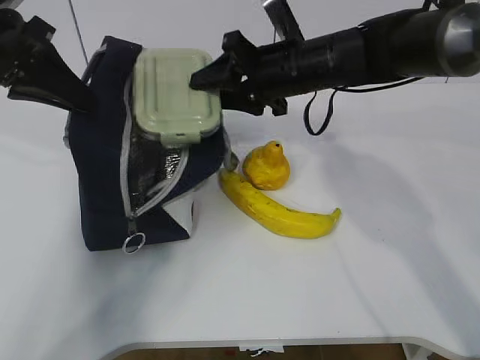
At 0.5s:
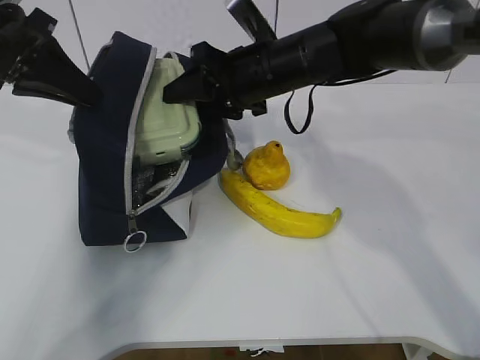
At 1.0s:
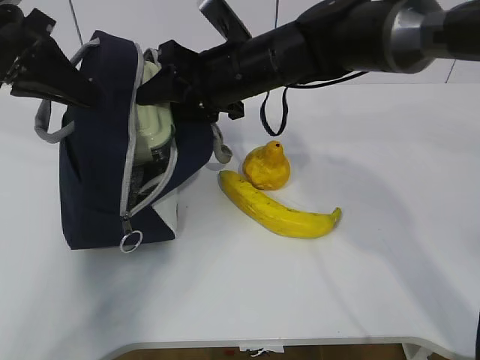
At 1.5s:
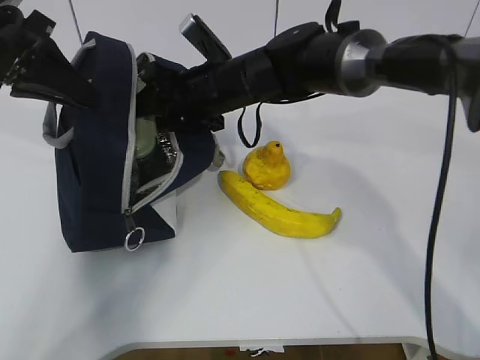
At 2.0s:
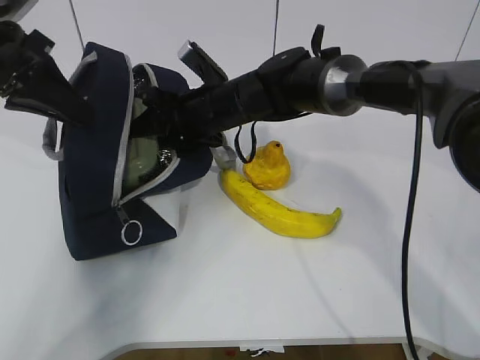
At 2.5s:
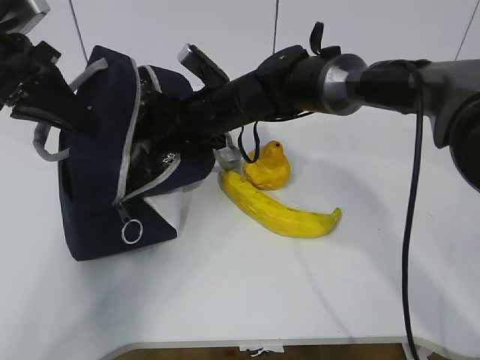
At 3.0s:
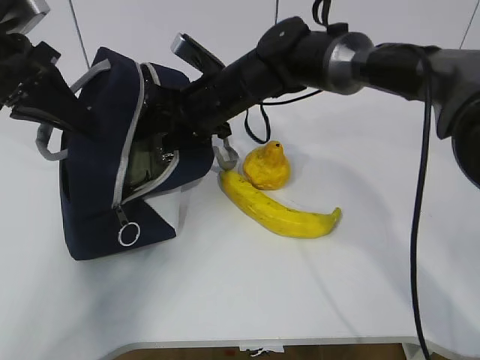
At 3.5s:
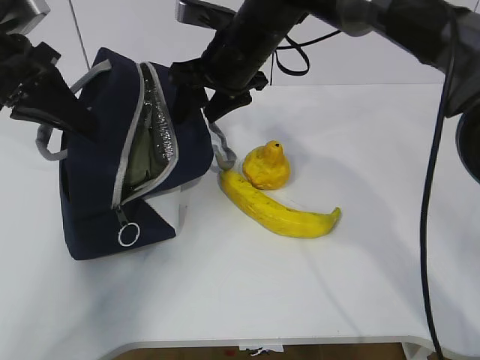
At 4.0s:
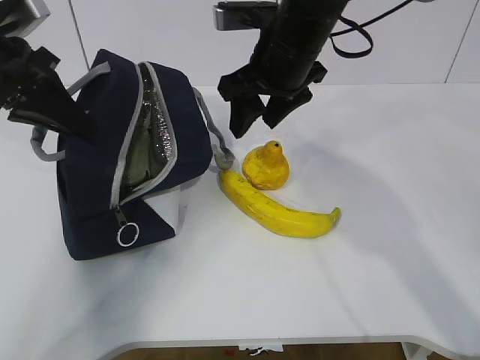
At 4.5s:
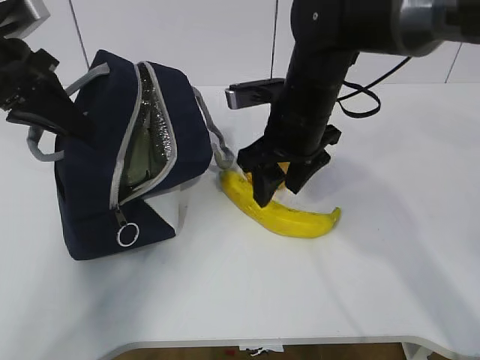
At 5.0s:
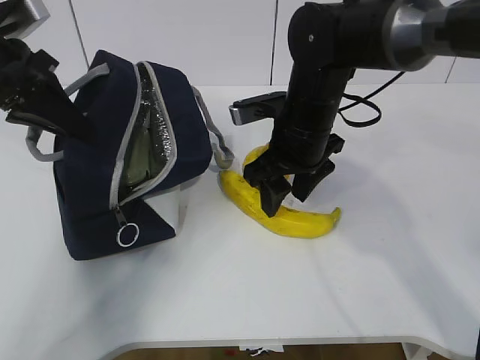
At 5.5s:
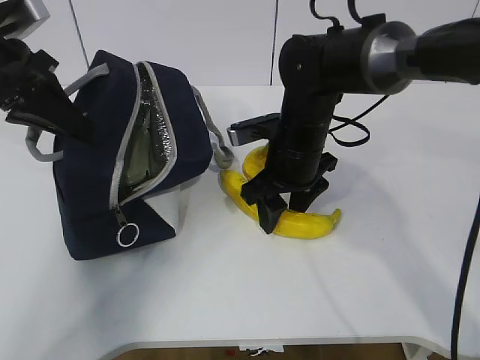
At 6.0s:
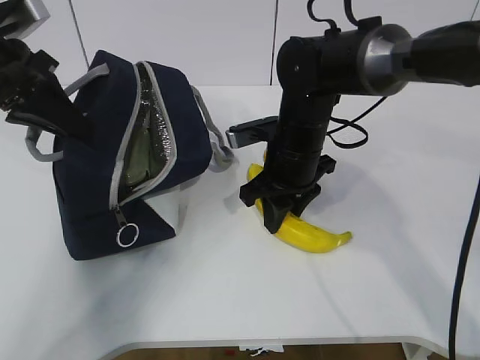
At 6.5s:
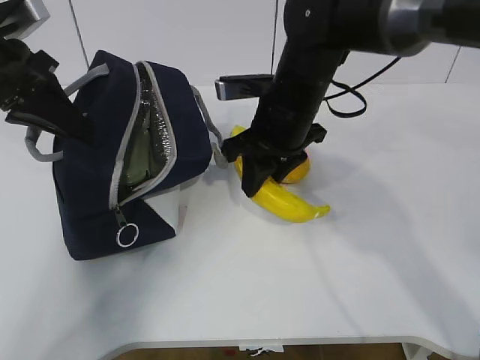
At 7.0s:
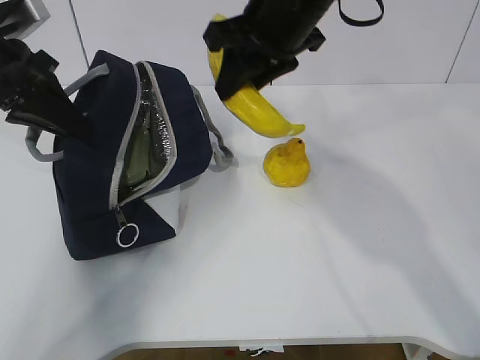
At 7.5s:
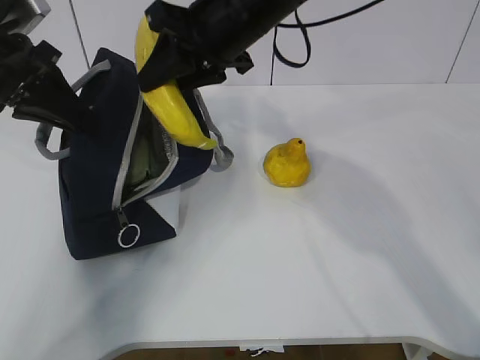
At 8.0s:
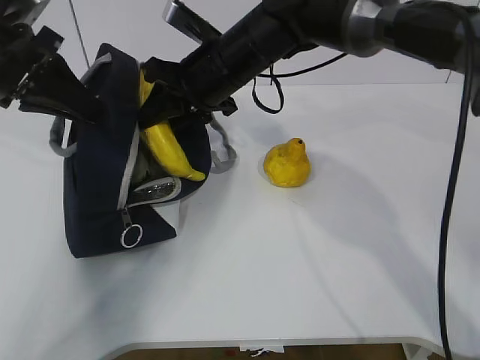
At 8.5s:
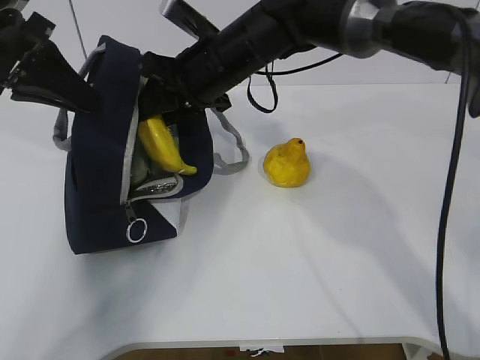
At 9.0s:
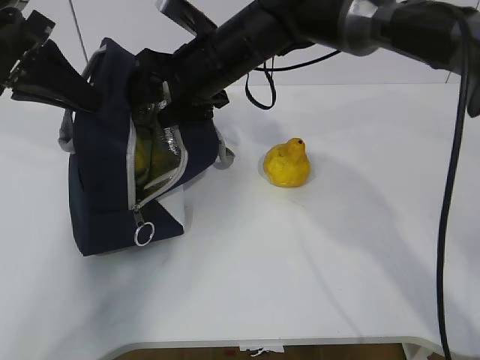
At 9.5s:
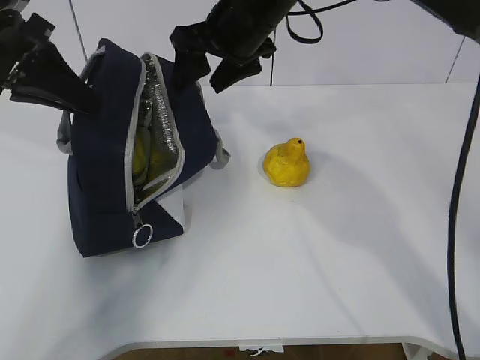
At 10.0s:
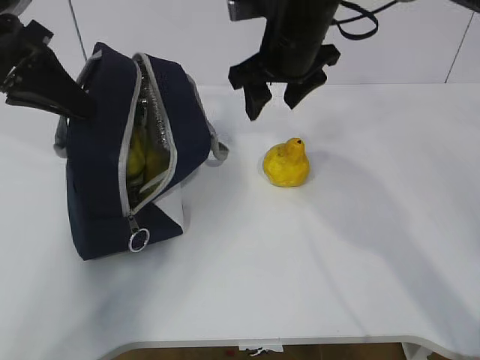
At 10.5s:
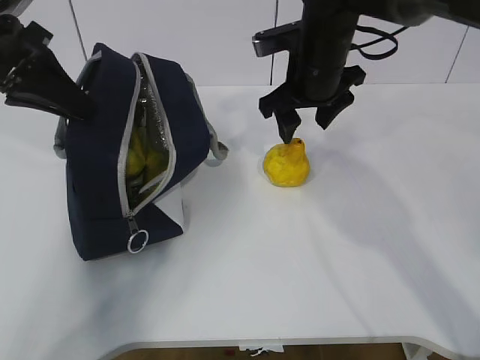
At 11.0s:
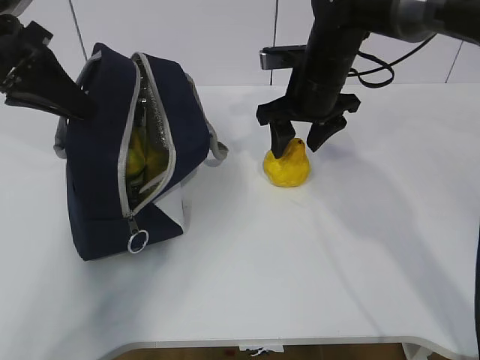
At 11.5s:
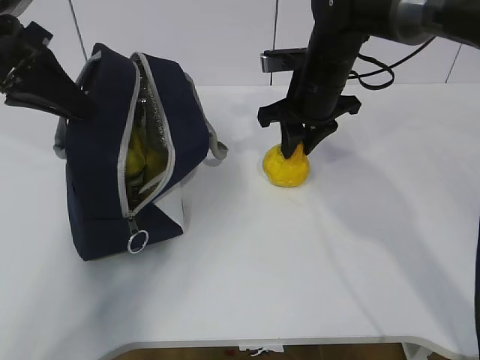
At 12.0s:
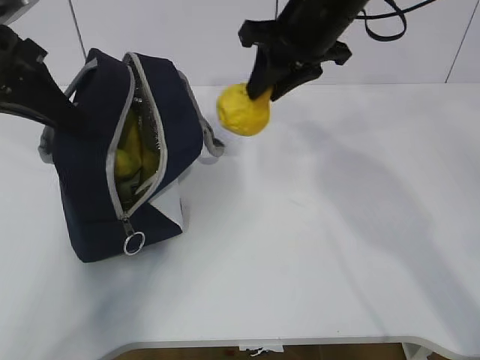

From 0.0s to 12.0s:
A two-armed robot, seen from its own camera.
Step, from 0.5s to 2.5s: Grab the banana with your right hand.
Step, from 3.0s to 5.5s: Place it into the bag with your right hand.
Step, from 6.0s to 7.0s: Grab the pear with your right hand.
Step, from 8.0s to 9.5s: Secure the lunch bag with your left hand.
Step, from 10.0s to 11.0s: Grab the lunch bag with your right hand.
From 0.0s to 2.0s: The right gripper travels to the left and downward by about 10 cm.
From 2.0s to 4.0s: The right gripper moves upward and to the right, roughly 15 cm.
From 4.0s to 6.0s: The right gripper is displaced downward by about 10 cm, and closes its fingers.
From 6.0s to 8.0s: The right gripper shifts roughly 10 cm upward and to the left.
From 8.0s to 10.0s: The right gripper is displaced to the right by roughly 5 cm, and opens up.
From 10.0s to 12.0s: The right gripper moves roughly 5 cm downward and comes back, and closes up.

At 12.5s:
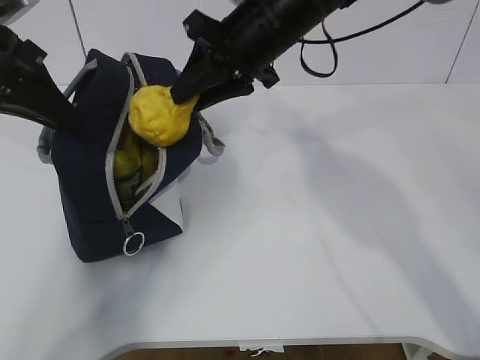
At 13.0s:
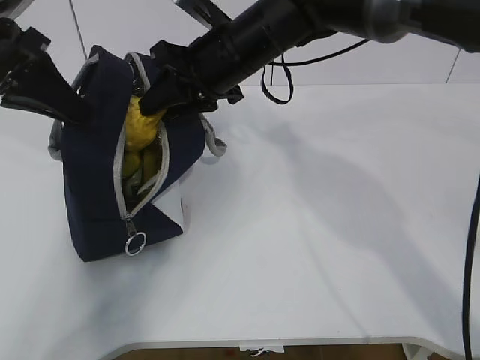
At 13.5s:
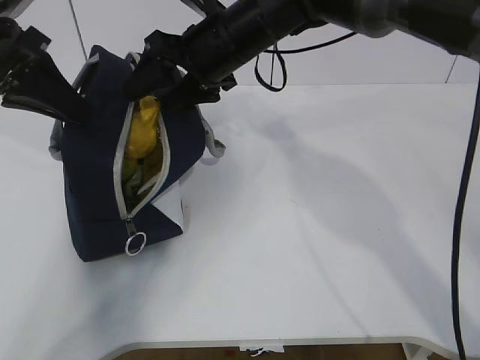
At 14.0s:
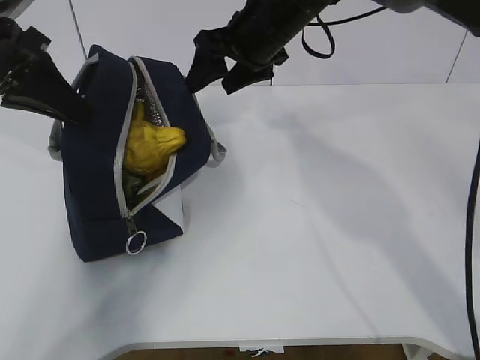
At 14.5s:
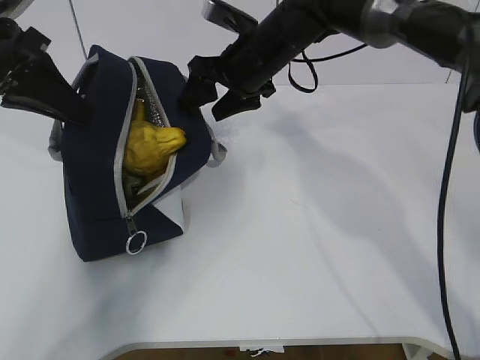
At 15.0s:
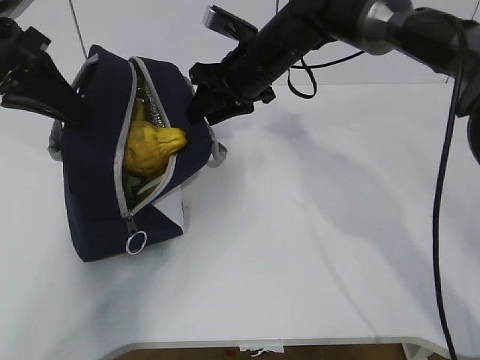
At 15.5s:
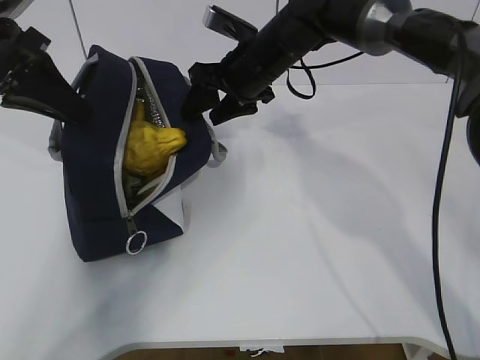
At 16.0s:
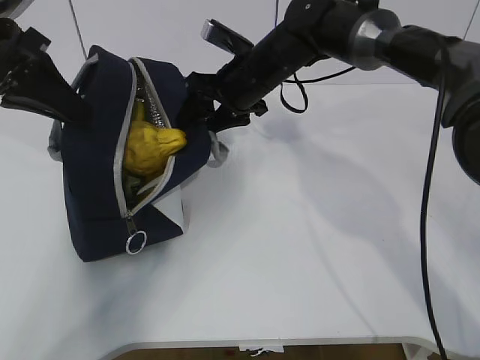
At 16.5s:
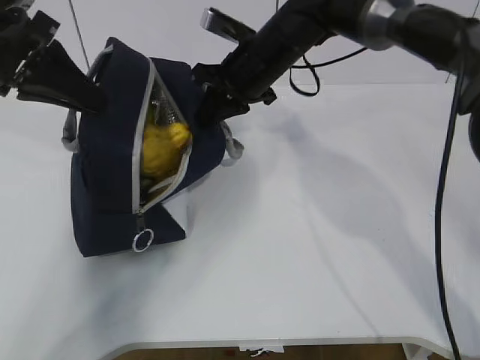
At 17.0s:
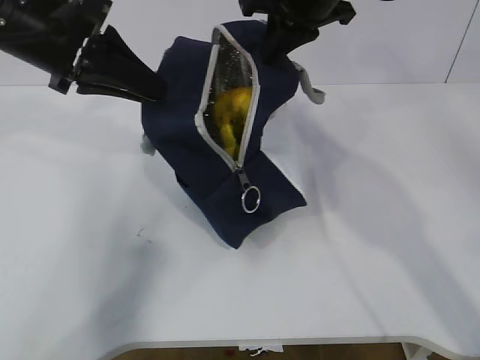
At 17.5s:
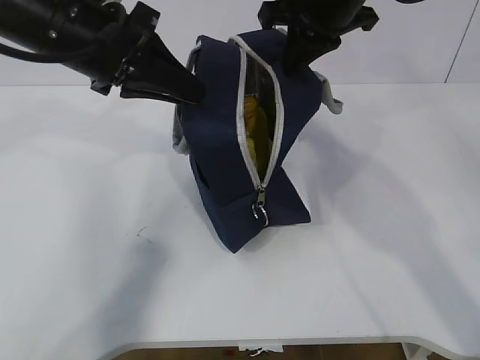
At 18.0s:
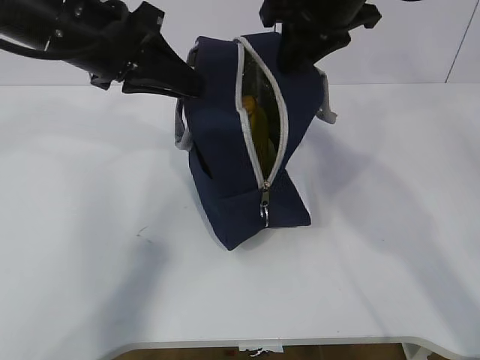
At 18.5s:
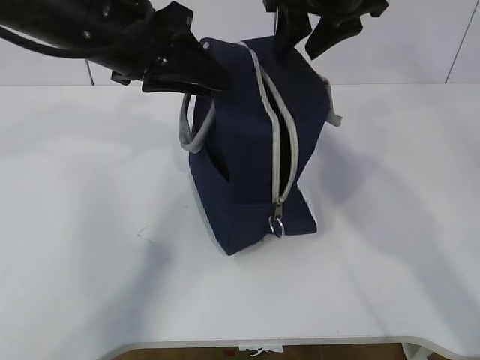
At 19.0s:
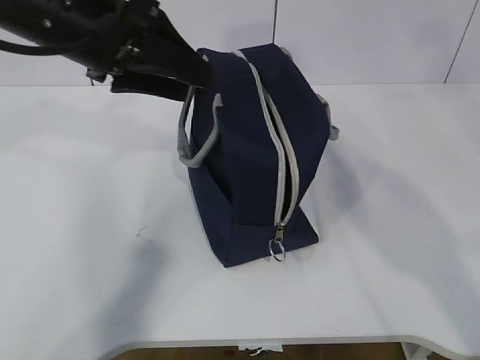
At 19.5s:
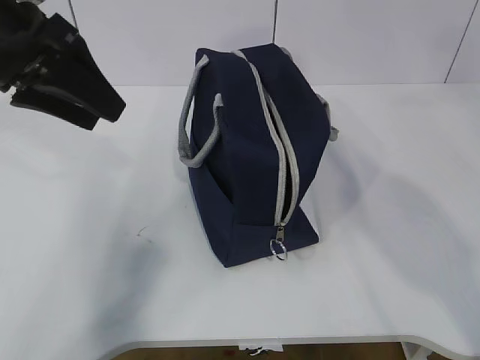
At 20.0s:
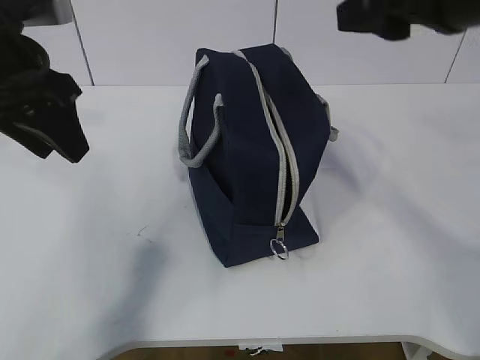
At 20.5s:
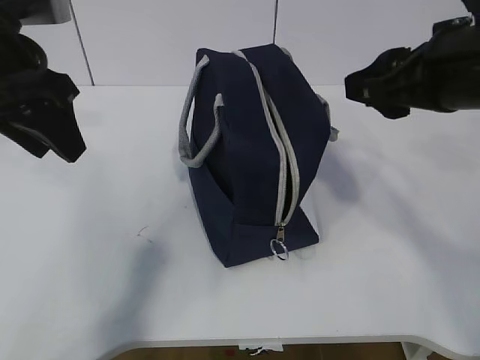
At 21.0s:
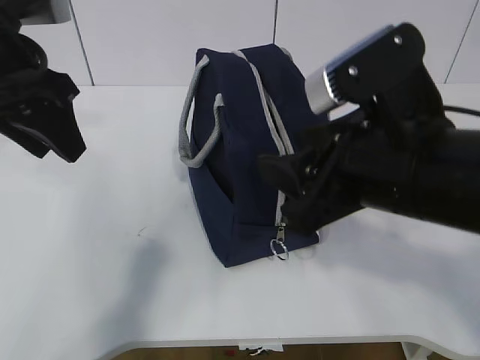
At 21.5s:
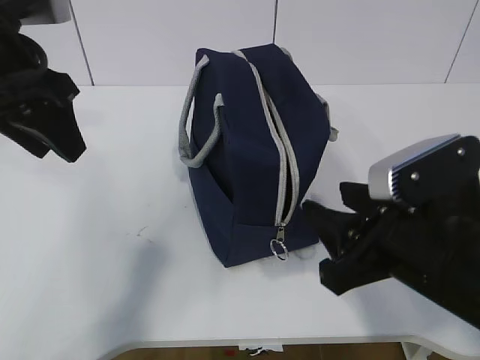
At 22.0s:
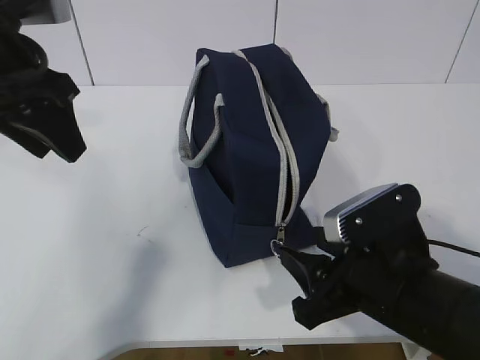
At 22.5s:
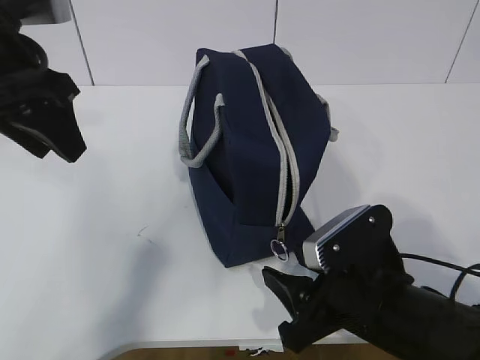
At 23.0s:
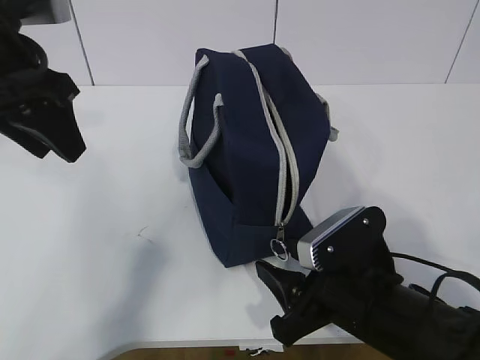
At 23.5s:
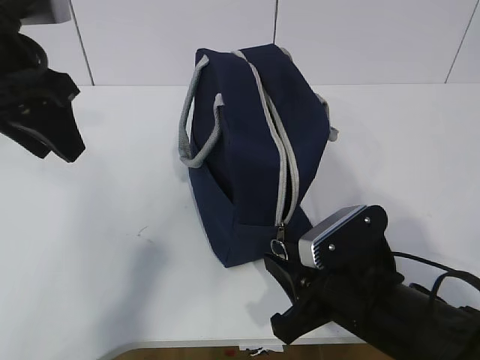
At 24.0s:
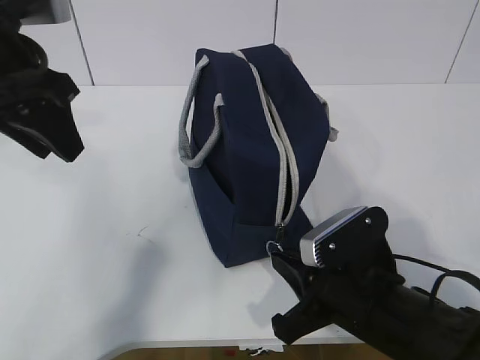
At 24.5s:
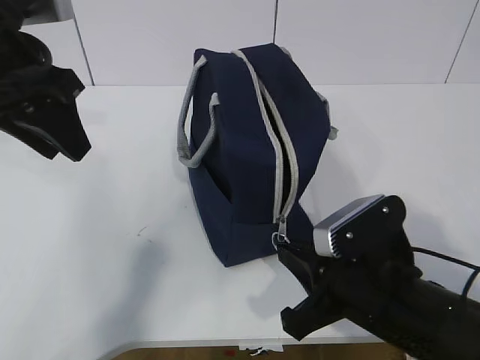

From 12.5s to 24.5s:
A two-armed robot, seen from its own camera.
Step, from 12.5s to 13.5s: Move the lunch bag to the right.
Step, from 14.0s to 22.0s: Grab the lunch bag with your left hand.
From 12.5s to 14.5s: The right gripper moves forward and downward, some 10 cm, and opens its fingers.
From 14.5s to 16.5s: The right gripper closes up.
From 16.5s to 18.5s: The left gripper travels to the right by some 10 cm, and opens, while the right gripper moves upward, to the right and backward, roughly 15 cm, and opens.
From 18.5s to 20.5s: The left gripper is displaced to the left by roughly 10 cm, and opens its fingers, while the right gripper heads backward, covering some 15 cm.
From 20.5s to 22.5s: The right gripper heads downward, covering about 20 cm.
From 22.5s to 24.5s: The right gripper closes its fingers.

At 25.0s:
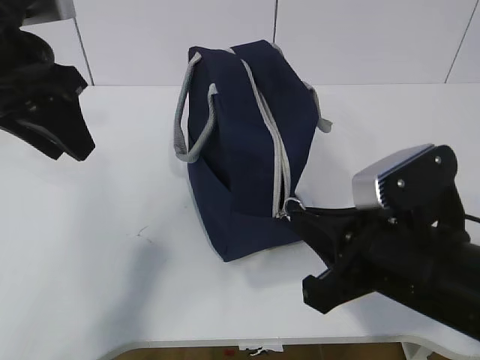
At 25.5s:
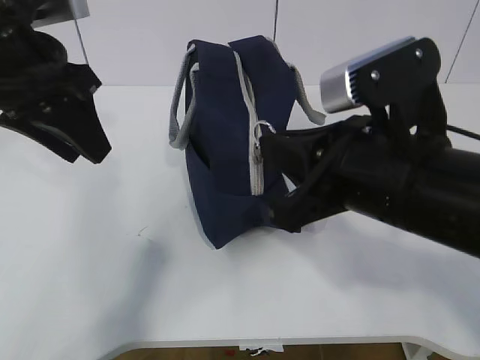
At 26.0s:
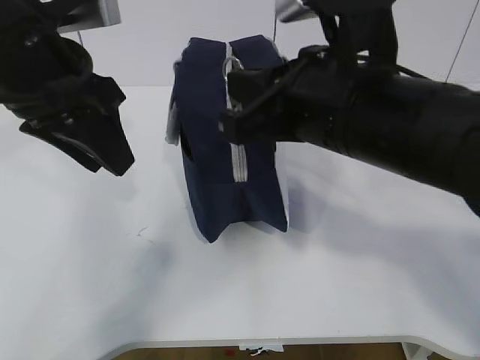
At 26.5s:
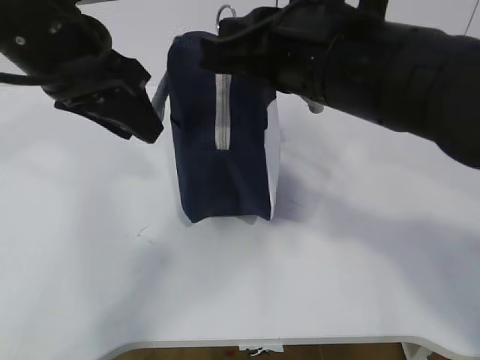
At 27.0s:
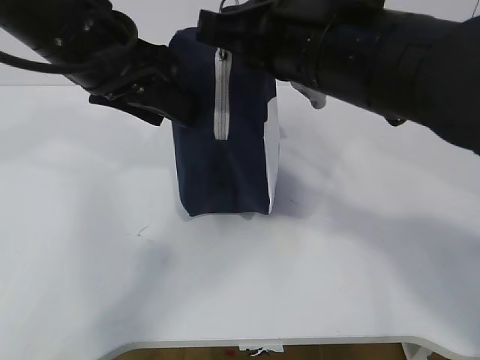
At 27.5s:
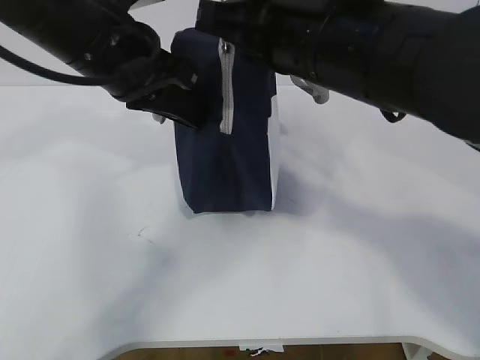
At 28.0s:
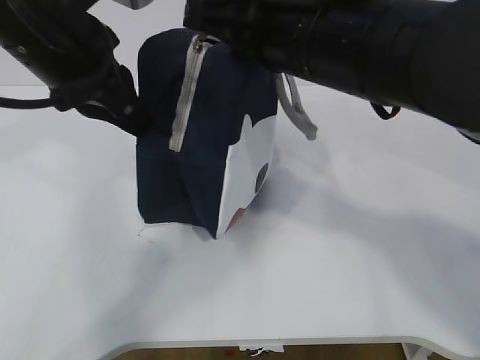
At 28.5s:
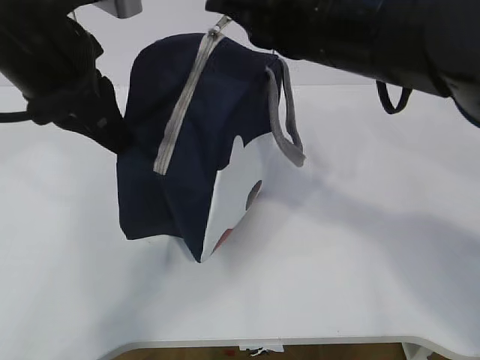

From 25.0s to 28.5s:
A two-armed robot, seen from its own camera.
Step, from 25.0s to 27.5s: Pull the zipper with your right hand.
From 25.0s to 27.0s: The left gripper shifts about 5 cm to the right. The right gripper is displaced upward, forward and to the left by some 15 cm.
From 27.0s to 28.5s: The left gripper closes its fingers.
